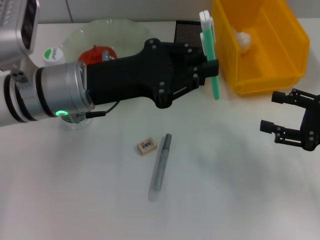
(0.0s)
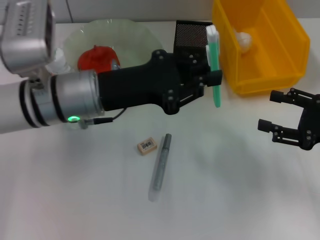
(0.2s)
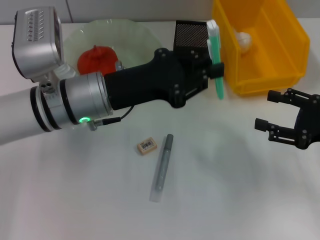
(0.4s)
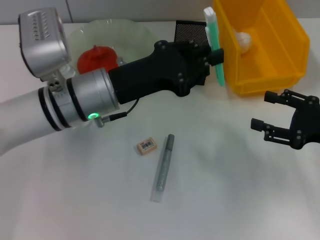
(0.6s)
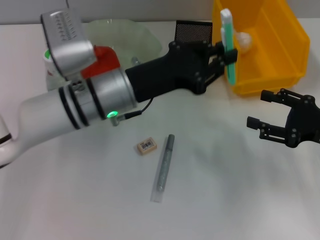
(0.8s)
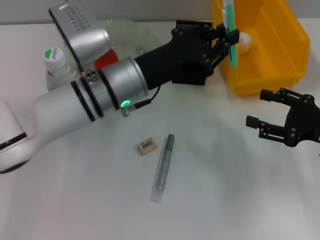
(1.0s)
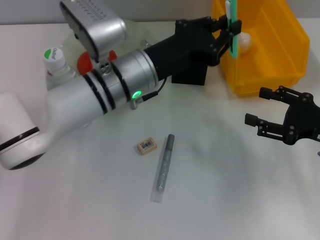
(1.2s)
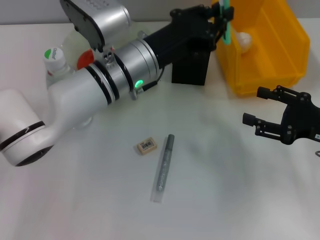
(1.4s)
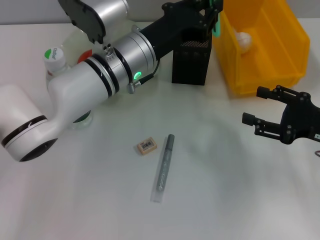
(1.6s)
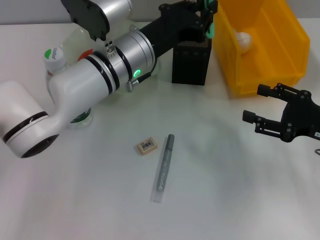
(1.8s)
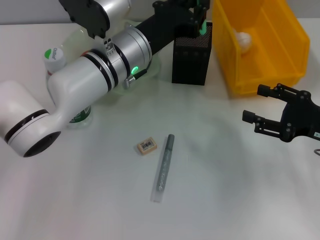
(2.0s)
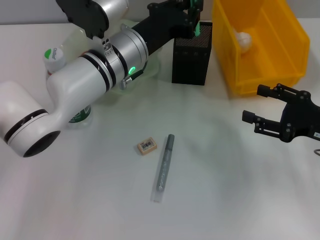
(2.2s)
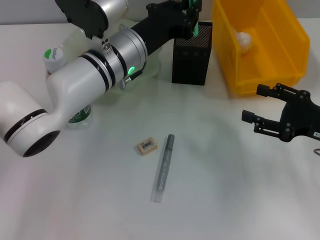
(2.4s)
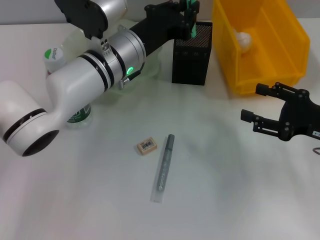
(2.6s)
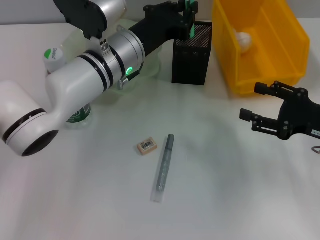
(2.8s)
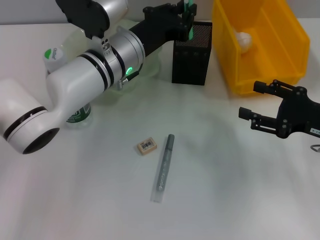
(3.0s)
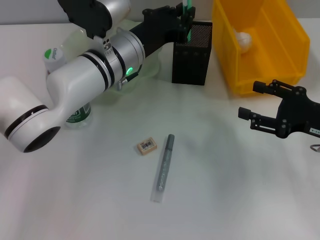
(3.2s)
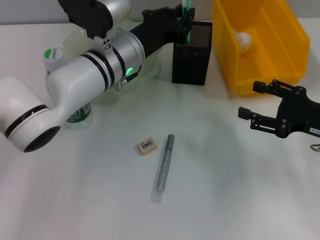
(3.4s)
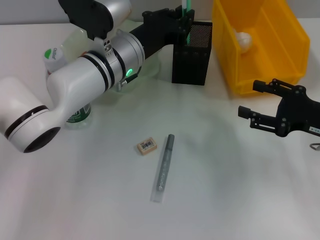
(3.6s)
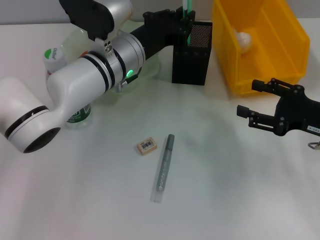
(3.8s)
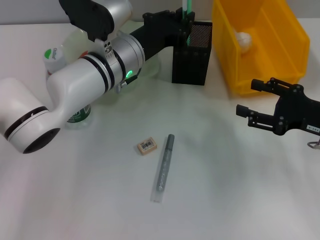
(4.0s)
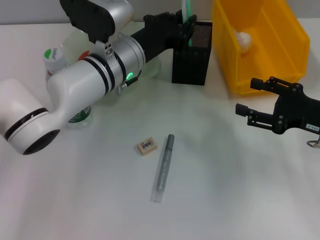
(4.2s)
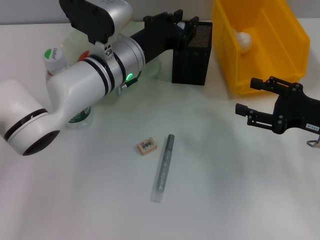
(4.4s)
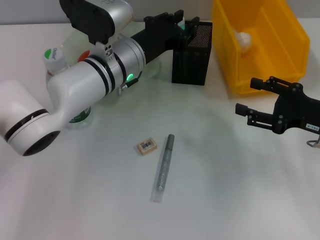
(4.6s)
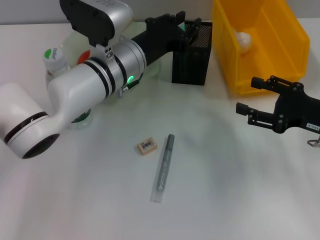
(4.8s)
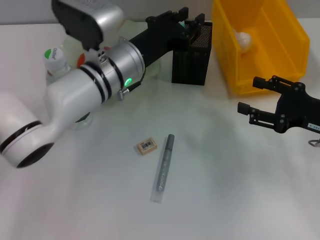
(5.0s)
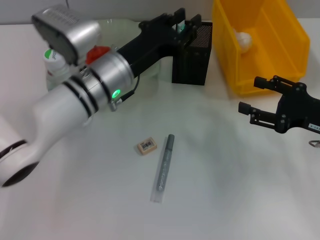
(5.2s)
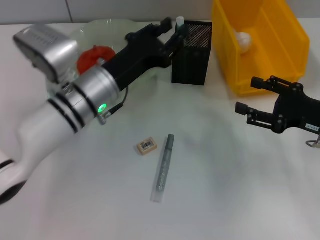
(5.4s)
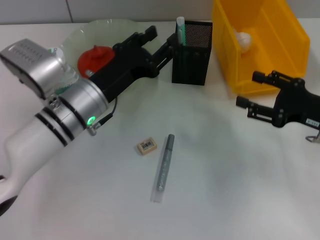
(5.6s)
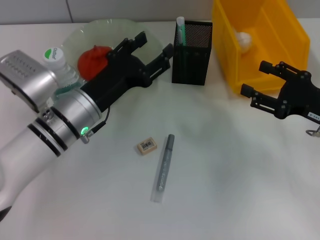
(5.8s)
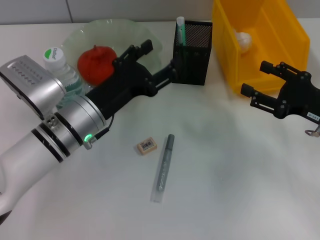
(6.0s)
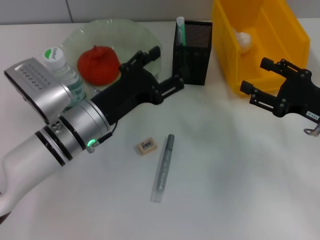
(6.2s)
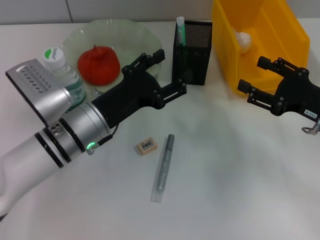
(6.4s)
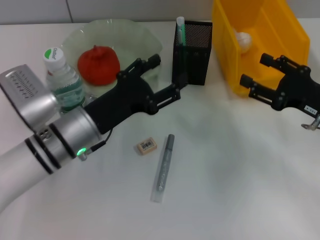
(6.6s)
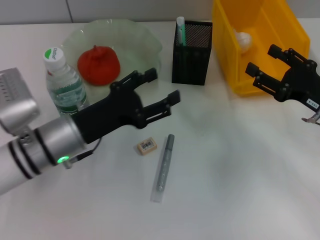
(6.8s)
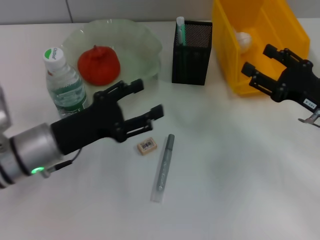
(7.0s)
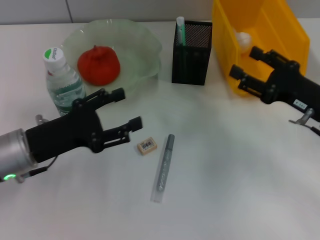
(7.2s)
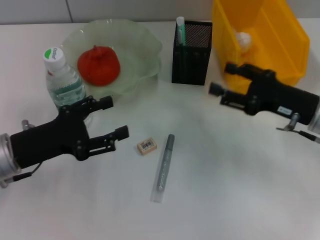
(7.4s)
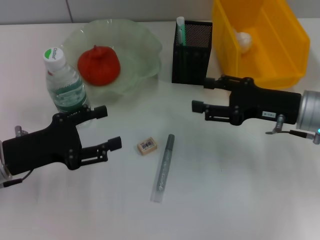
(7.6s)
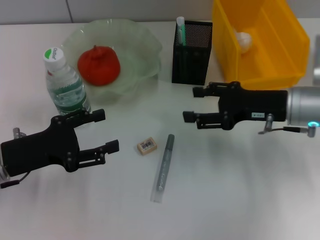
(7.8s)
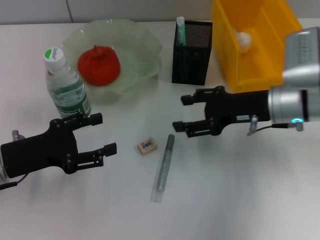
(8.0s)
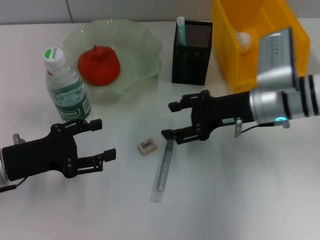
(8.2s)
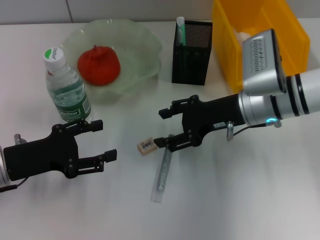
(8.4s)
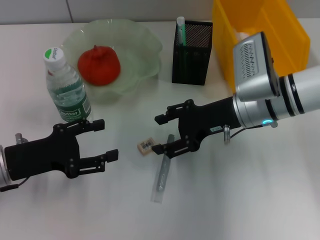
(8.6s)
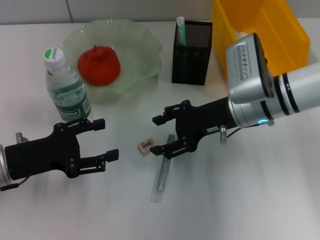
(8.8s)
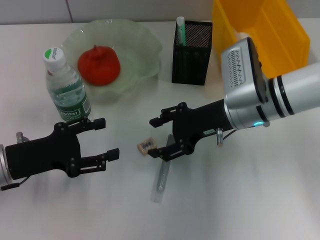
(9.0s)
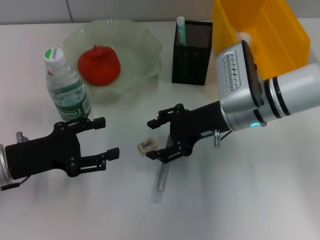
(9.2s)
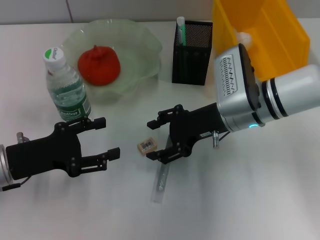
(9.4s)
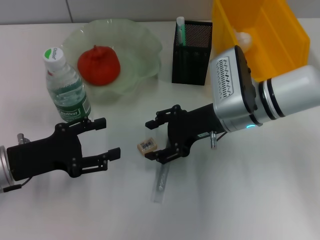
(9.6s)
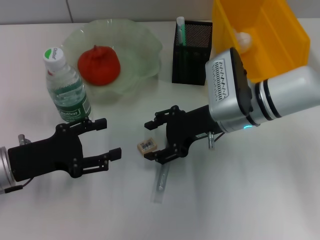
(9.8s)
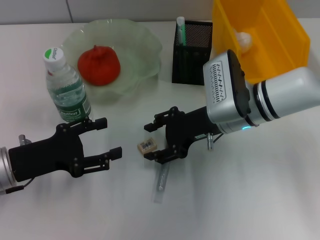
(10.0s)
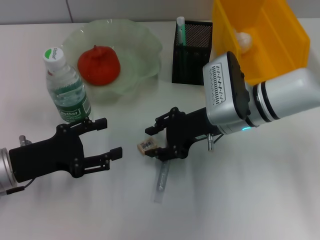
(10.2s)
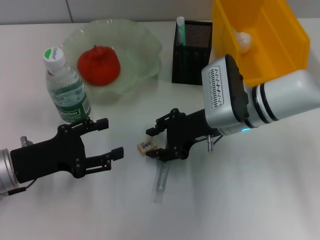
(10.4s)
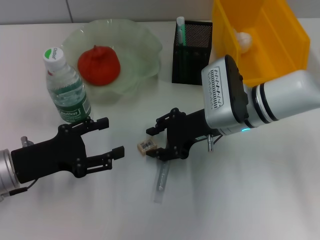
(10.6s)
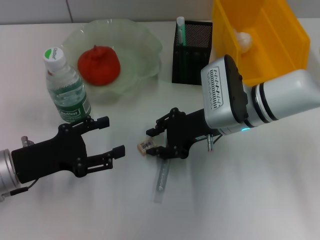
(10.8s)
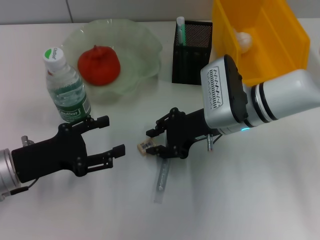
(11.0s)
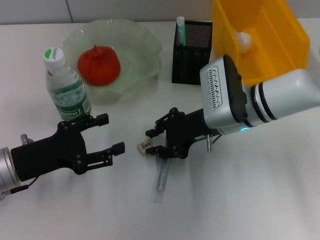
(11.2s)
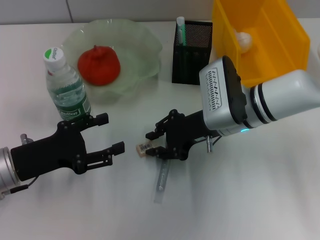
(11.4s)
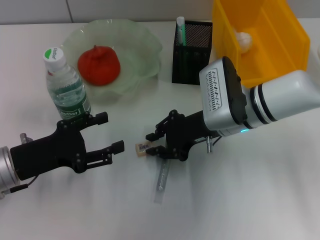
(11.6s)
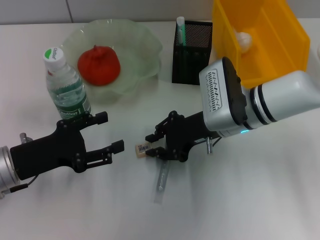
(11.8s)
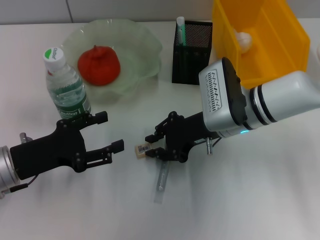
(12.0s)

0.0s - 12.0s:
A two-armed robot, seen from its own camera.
Step, 0.0s - 5.2s: Place the blue utility knife into the pen holder with the left hand.
0.0s - 1.6s: The left gripper heads to the right and forward, covering approximately 10 cm.
1.6s - 3.0s: The grippers move only a little.
3.0s - 4.4s: Neither gripper changes place.
4.4s - 6.0s: The left gripper moves backward and to the left, approximately 10 cm, and opens its fingers.
6.0s - 7.6s: The left gripper goes approximately 15 cm to the left. Meanwhile the right gripper goes approximately 5 cm to the left.
7.6s - 9.0s: The right gripper shifts about 10 cm to the left.
9.0s - 10.4s: The grippers make only small movements.
10.4s - 12.0s: The right gripper closes up.

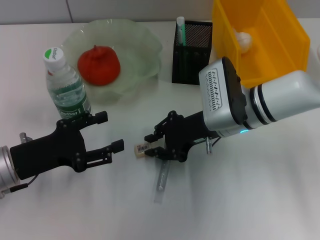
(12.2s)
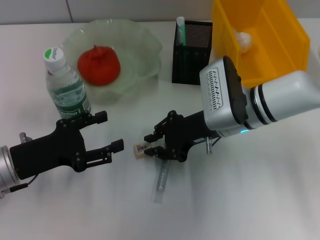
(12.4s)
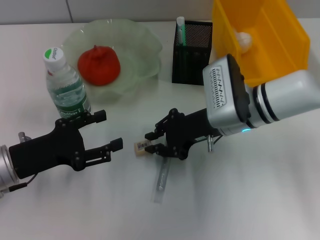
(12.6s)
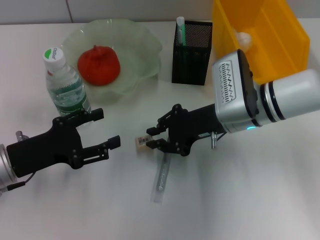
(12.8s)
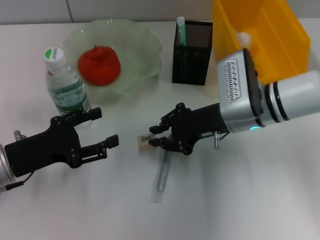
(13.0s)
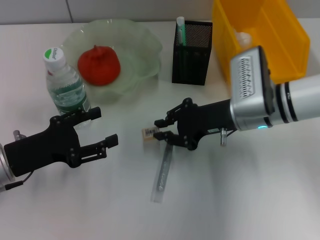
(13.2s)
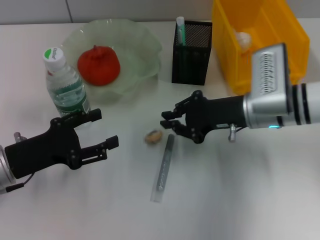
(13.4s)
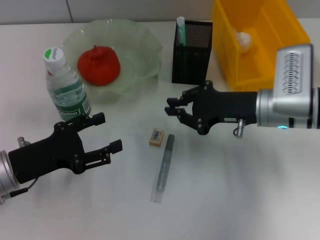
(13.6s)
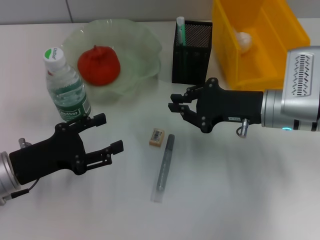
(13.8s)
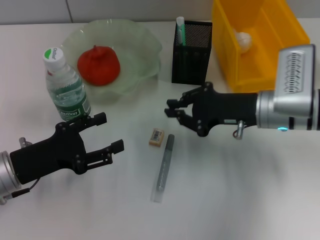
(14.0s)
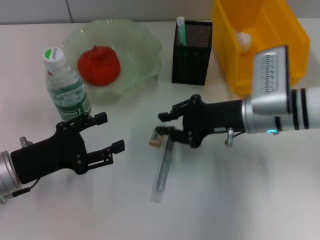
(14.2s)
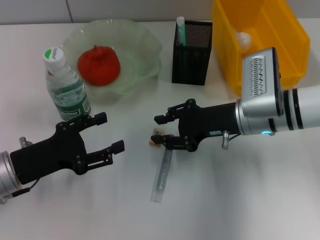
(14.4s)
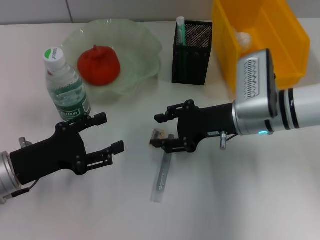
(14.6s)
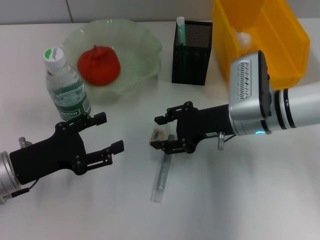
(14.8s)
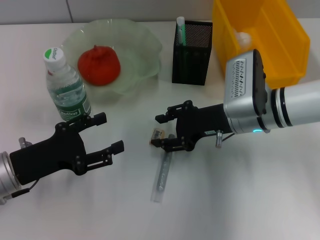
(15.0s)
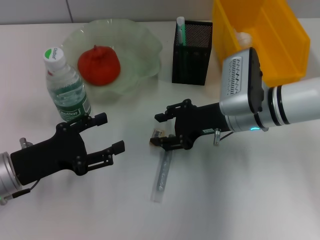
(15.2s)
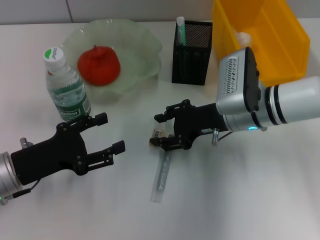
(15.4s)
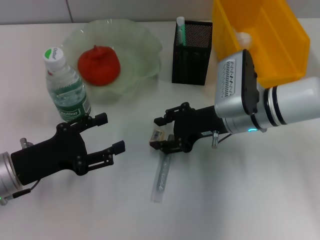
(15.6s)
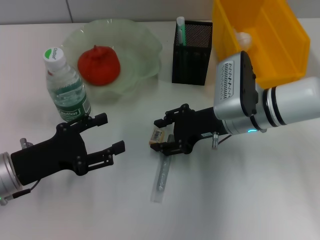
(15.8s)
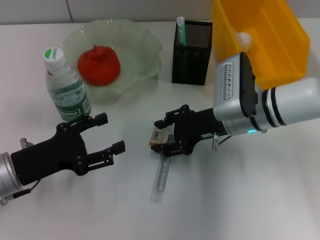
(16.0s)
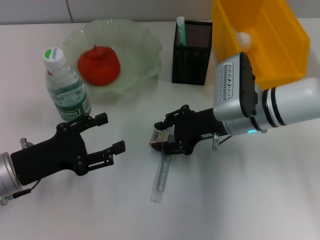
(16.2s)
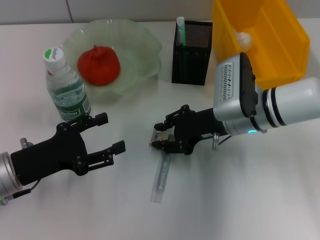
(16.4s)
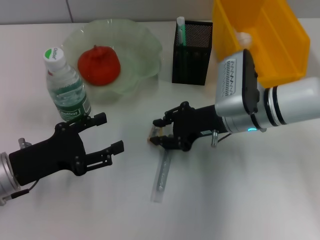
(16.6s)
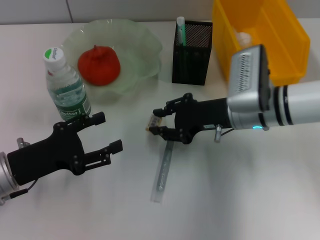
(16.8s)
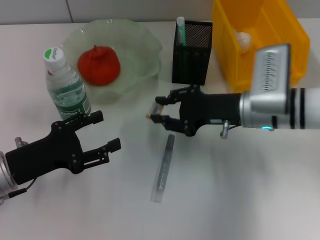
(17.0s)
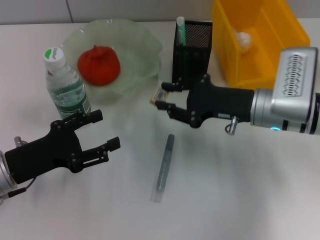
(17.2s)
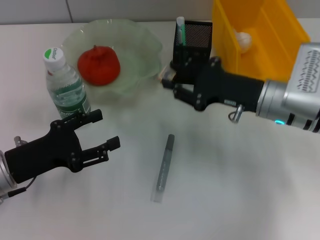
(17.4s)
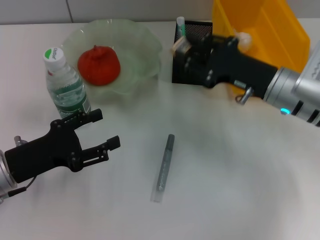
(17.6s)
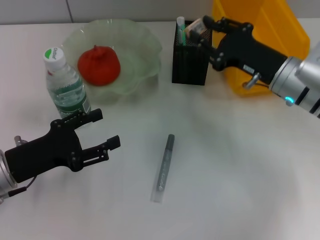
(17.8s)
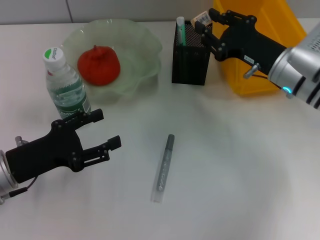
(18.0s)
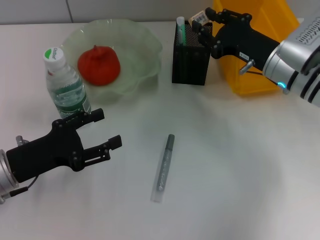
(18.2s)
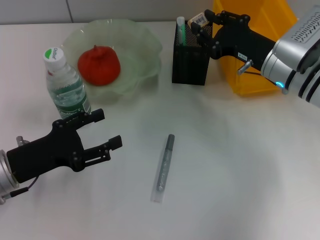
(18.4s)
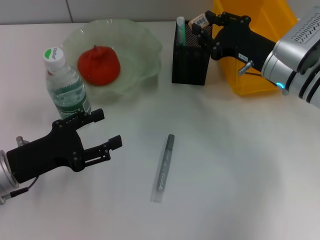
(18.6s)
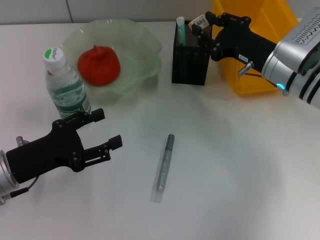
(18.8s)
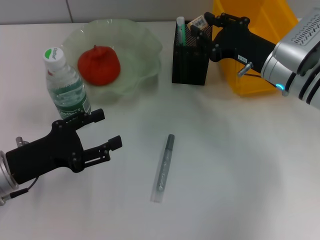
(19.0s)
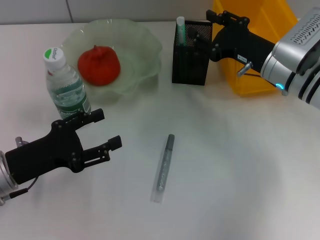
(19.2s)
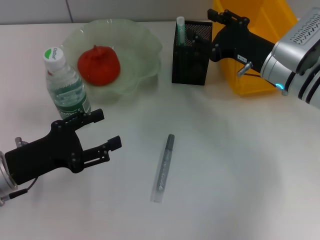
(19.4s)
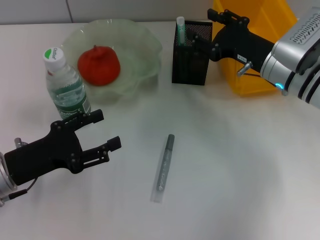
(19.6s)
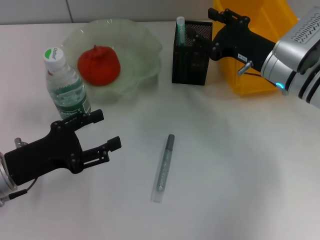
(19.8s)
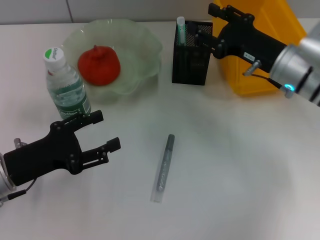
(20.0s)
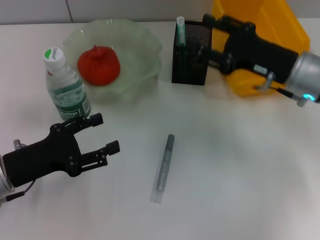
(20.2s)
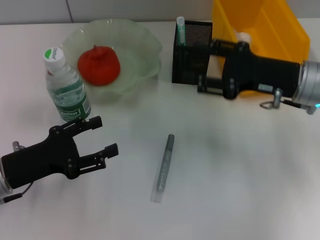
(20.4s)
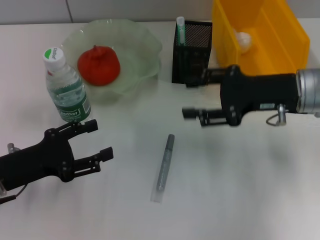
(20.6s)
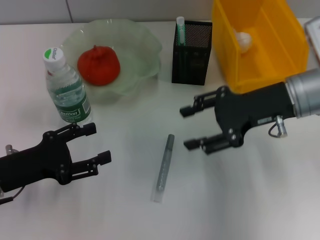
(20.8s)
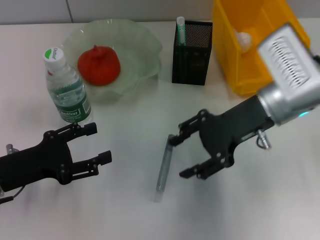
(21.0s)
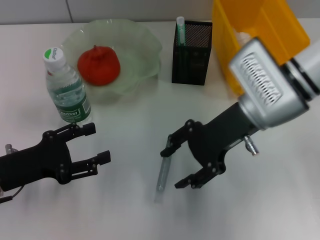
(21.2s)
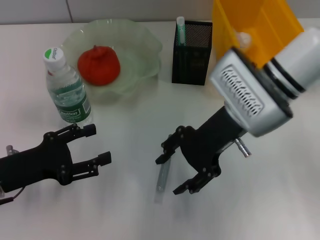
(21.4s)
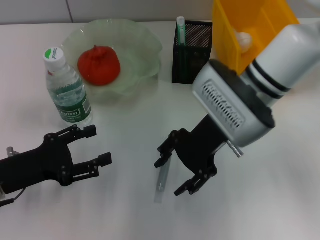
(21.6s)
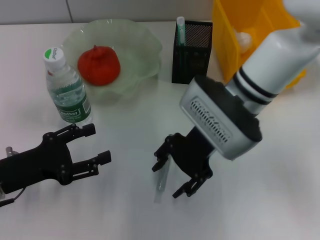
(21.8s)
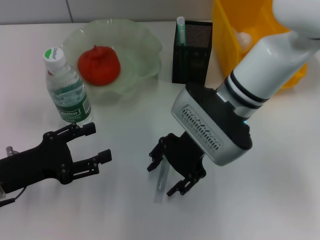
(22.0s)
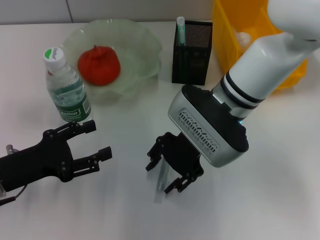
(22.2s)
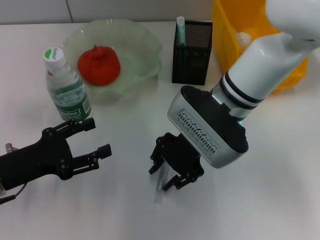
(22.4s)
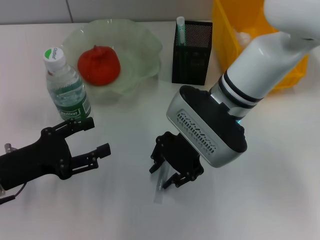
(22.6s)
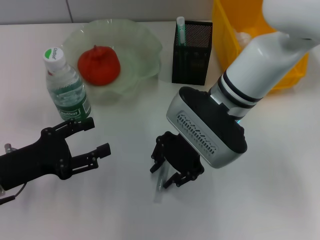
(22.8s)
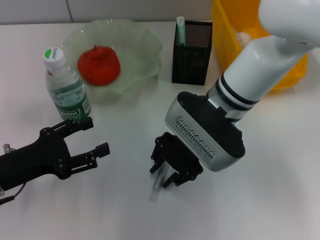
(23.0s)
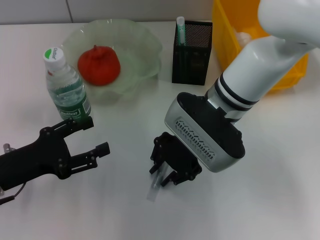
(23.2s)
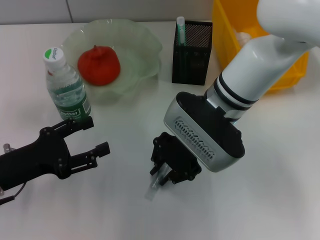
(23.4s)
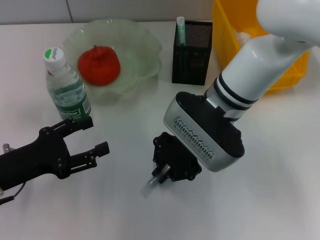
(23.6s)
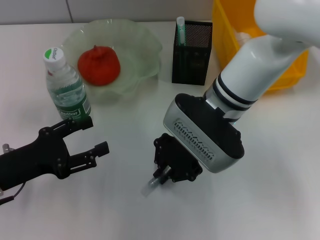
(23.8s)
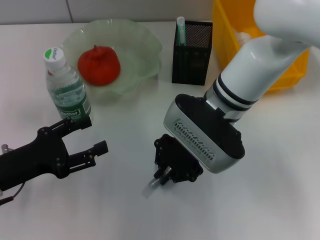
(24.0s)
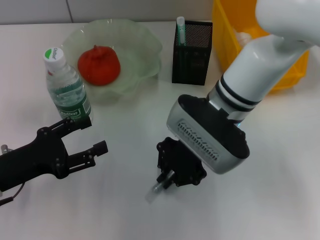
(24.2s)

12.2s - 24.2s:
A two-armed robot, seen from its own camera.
Step, 12.2s - 16.4s: Grab the eraser with the right hand.
Step, 16.6s - 19.2s: Put the eraser into the pen holder with the right hand.
12.2s - 13.8s: The right gripper moves to the right, roughly 5 cm.
13.8s - 15.2s: The right gripper changes place by some 5 cm, and opens.
15.2s - 16.6s: The two grippers keep their place.
16.6s - 18.2s: The right gripper moves to the right, roughly 5 cm.
18.2s - 19.8s: The right gripper opens up.
19.8s - 21.2s: The right gripper goes roughly 5 cm to the left.
21.2s - 22.6s: The right gripper shifts some 5 cm to the left.
22.6s - 24.2s: The right gripper closes up.
